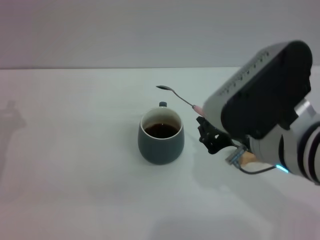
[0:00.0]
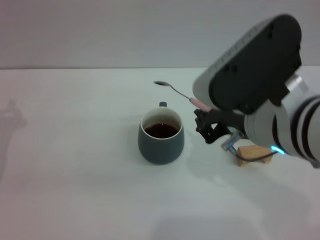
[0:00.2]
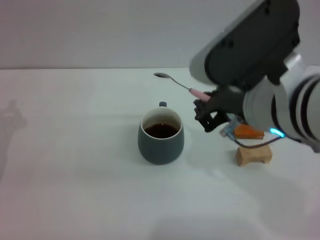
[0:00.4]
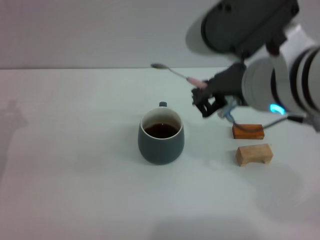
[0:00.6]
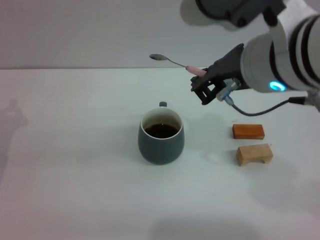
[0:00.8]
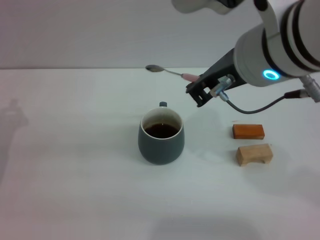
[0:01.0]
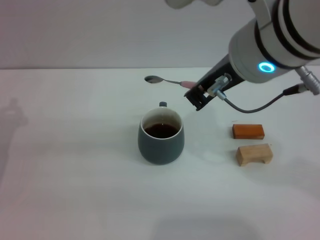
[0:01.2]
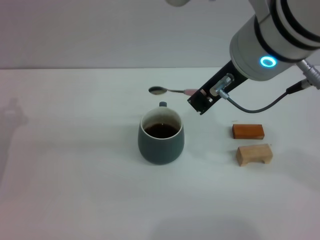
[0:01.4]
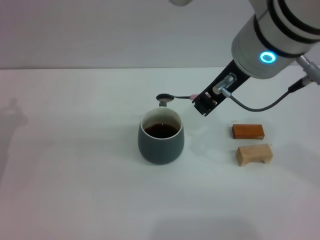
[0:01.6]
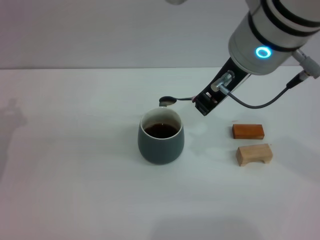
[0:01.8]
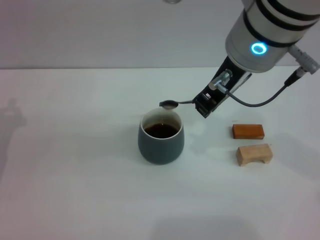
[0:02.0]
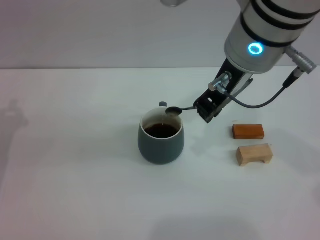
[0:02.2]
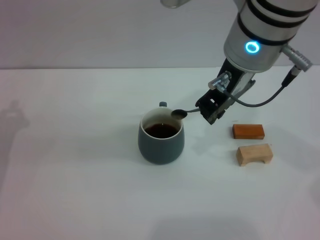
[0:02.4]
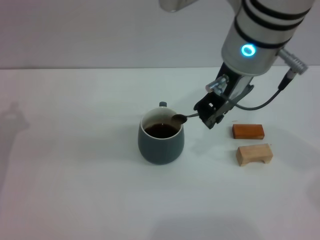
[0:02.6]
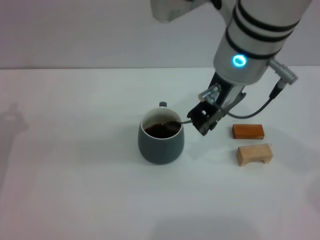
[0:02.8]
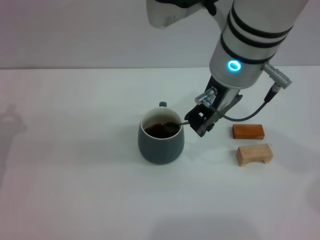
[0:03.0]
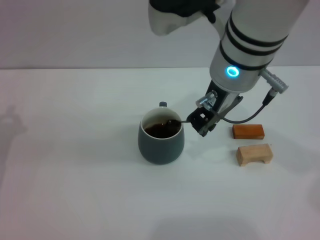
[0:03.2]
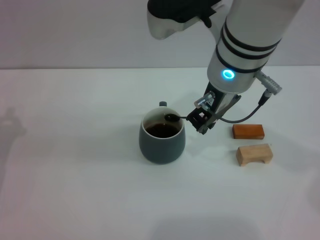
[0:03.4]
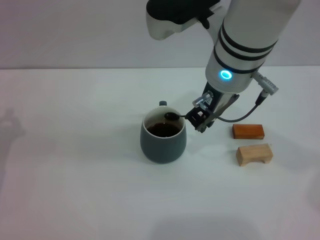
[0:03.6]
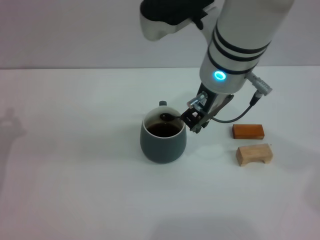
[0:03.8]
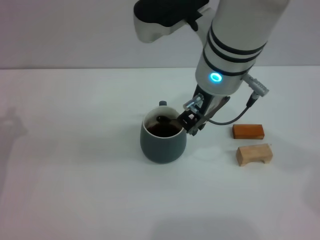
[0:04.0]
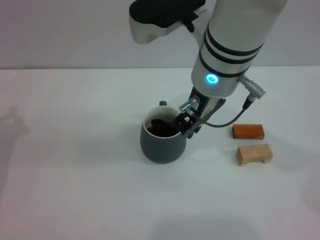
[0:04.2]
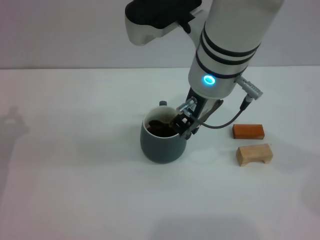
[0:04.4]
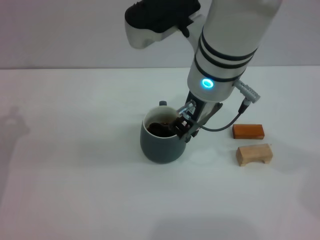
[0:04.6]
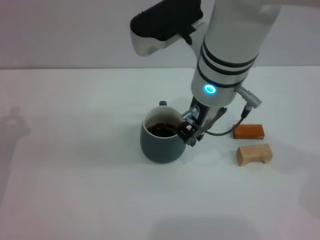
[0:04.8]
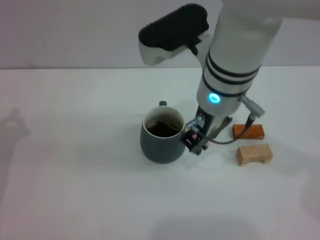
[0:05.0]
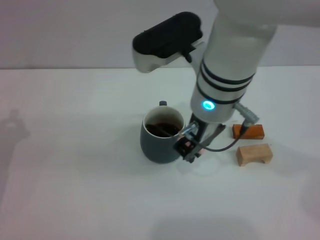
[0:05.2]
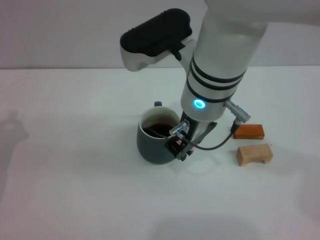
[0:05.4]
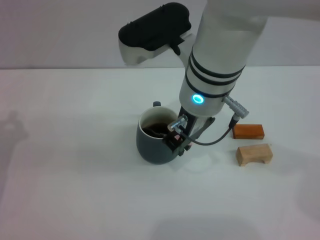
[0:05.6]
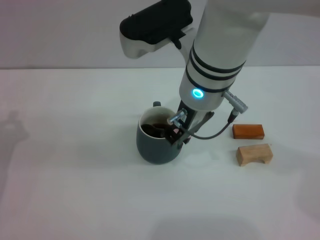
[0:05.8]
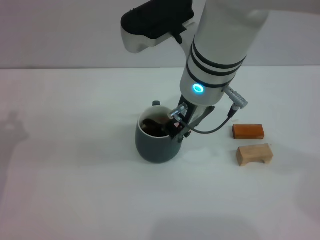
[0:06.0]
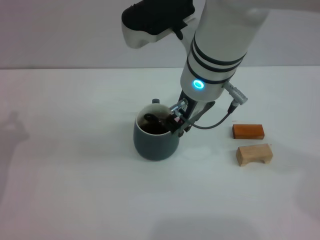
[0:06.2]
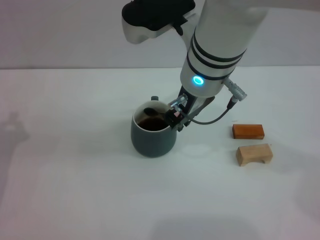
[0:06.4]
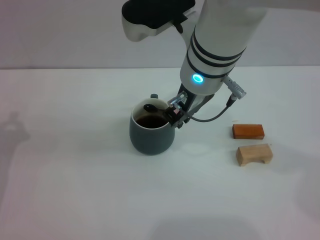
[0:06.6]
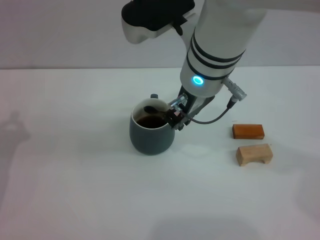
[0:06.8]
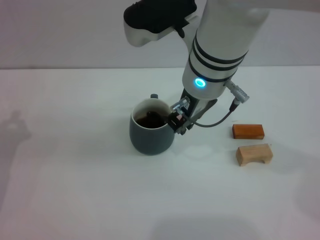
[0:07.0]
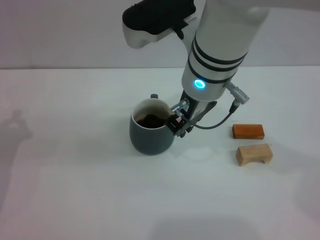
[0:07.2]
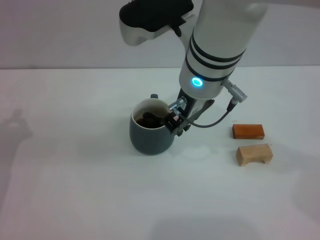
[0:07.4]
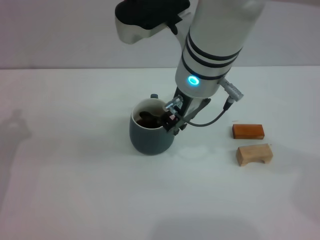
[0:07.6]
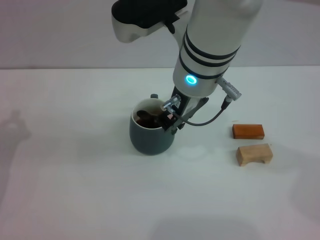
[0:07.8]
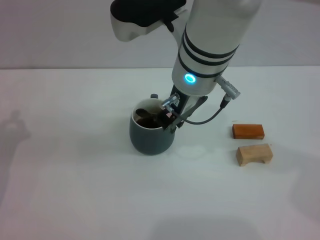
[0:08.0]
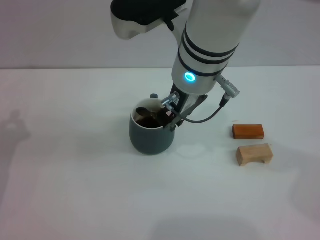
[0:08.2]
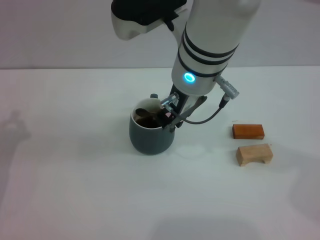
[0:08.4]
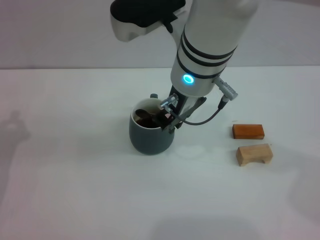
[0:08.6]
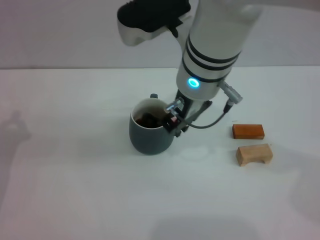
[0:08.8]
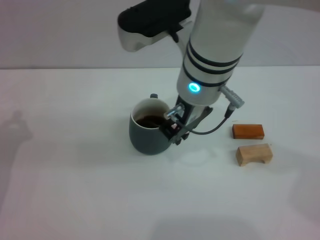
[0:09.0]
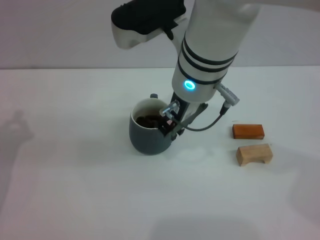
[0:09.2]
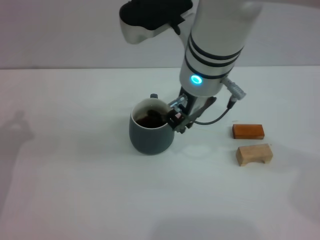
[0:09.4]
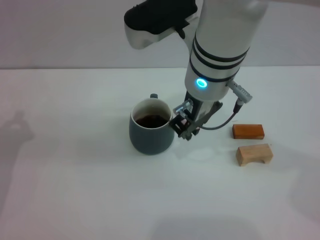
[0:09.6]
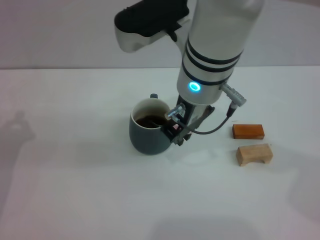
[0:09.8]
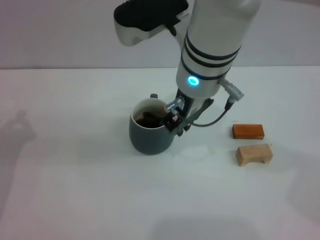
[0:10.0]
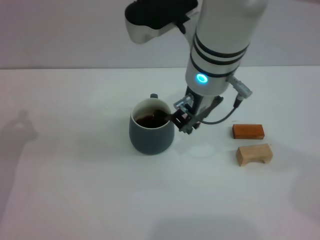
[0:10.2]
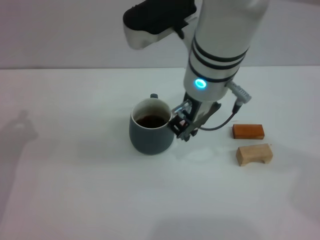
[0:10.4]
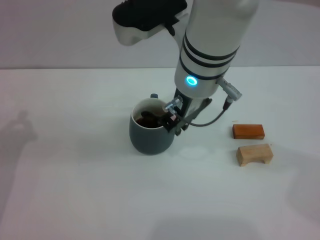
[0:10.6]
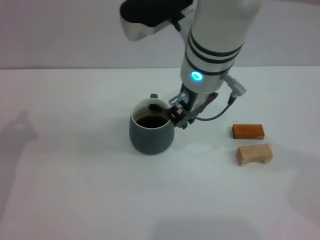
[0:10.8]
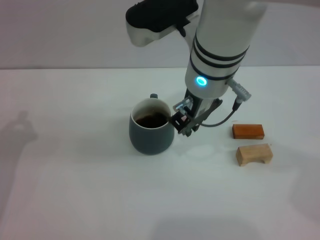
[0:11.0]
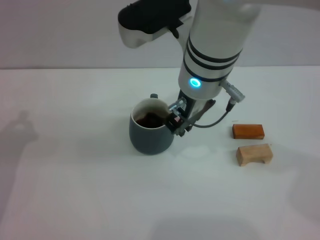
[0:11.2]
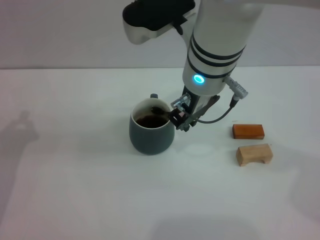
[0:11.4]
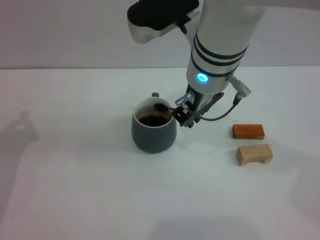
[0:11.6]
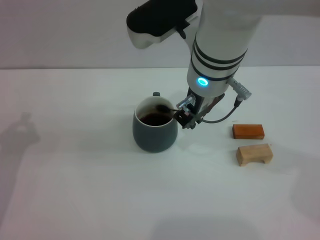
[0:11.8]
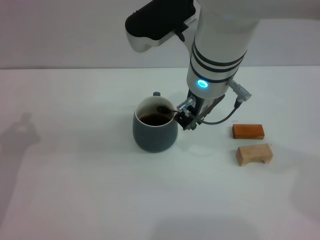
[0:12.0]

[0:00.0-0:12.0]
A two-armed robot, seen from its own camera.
Task of the whole recording: Move the grey cup to the center, lift the pink spoon, stir it three times in the cup, and put the spoon into the cup.
0:00.0 to 0:01.6: The right gripper shifts some 10 cm upward and forward.
0:01.6 to 0:03.0: The grippers stay close to where they were, moving slightly.
0:03.0 to 0:06.0: The grippers make only small movements.
0:06.0 to 0:07.6: Neither gripper changes place.
0:07.6 to 0:10.4: Both grippers stay put.
0:10.4 to 0:12.0: There are only small adjustments of the grippers.

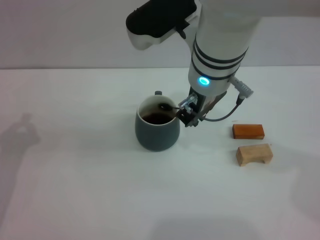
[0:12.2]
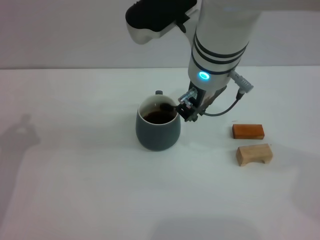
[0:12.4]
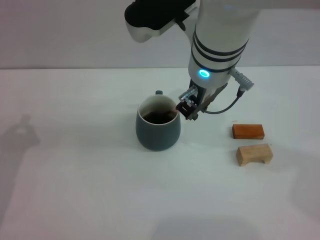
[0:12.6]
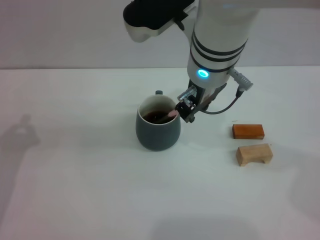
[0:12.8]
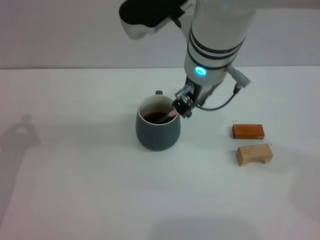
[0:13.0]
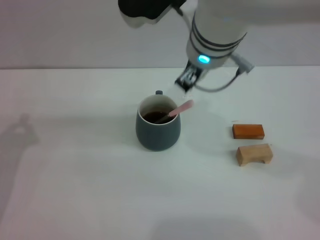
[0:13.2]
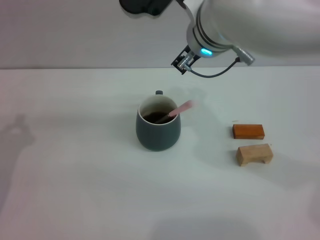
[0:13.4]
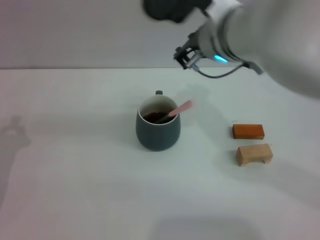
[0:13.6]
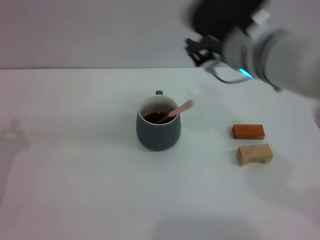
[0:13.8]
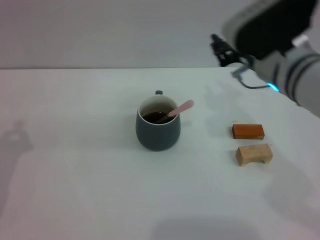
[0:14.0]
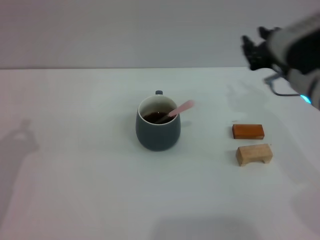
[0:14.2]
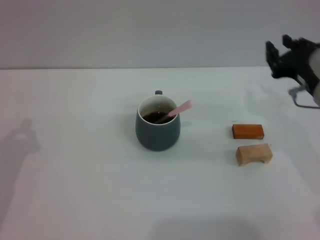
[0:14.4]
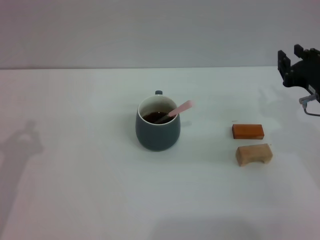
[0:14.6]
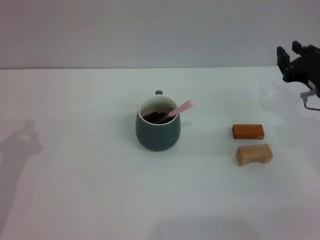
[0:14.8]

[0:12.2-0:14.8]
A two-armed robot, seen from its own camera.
Task of the whole recording: Move the grey cup to the center, lift the pink spoon, stir it three times in the cup, and put the spoon into the cup.
0:12.2 to 0:13.4: The right gripper opens its fingers.
0:13.4 to 0:14.8: The right gripper goes about 25 cm to the right and downward.
